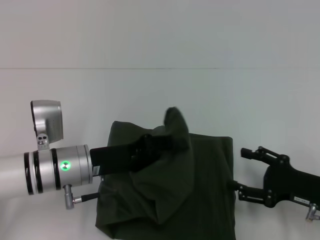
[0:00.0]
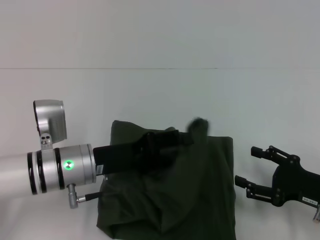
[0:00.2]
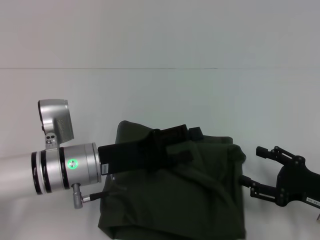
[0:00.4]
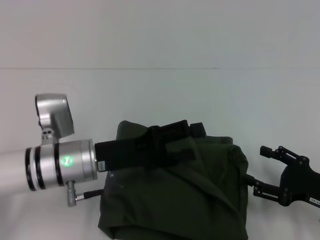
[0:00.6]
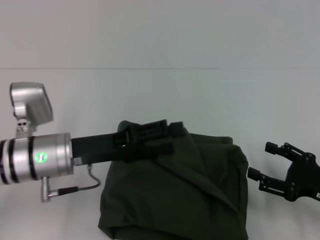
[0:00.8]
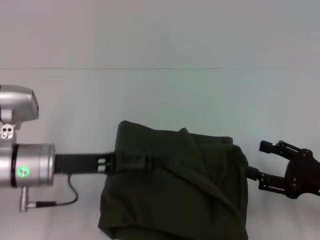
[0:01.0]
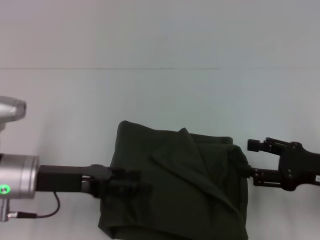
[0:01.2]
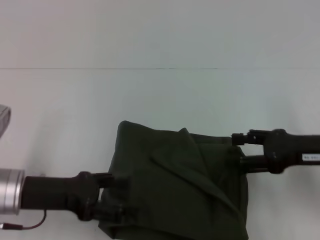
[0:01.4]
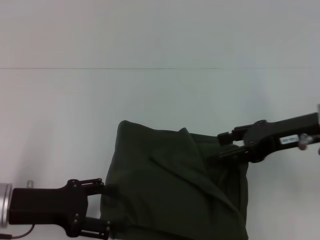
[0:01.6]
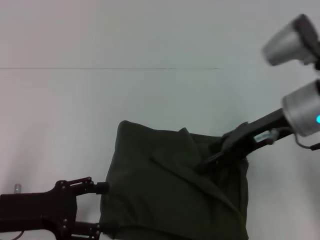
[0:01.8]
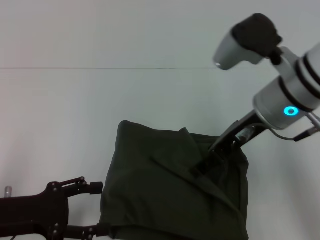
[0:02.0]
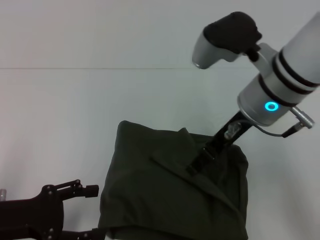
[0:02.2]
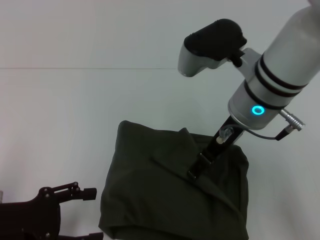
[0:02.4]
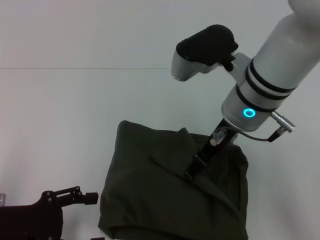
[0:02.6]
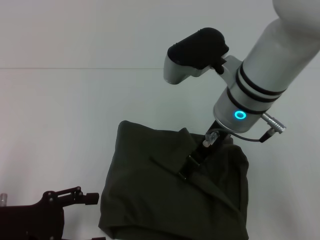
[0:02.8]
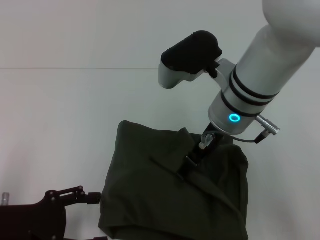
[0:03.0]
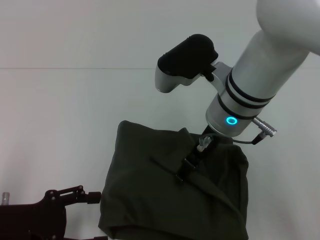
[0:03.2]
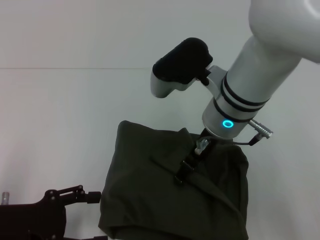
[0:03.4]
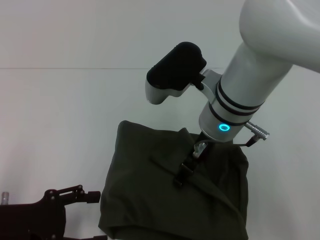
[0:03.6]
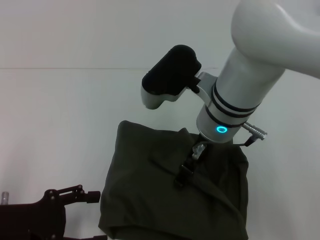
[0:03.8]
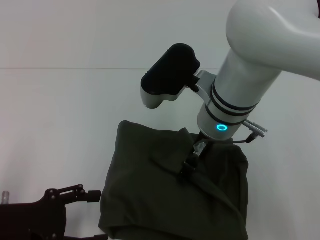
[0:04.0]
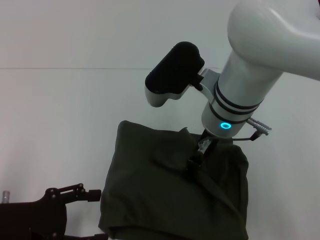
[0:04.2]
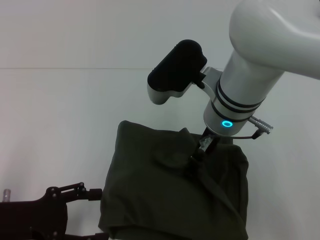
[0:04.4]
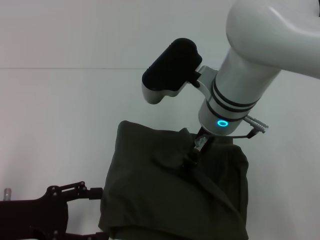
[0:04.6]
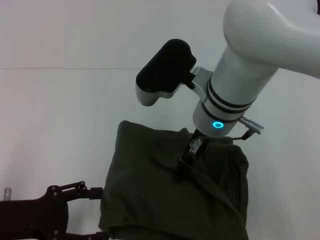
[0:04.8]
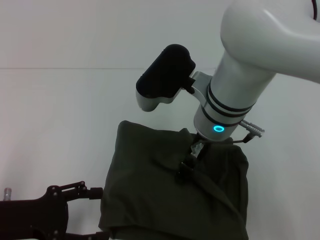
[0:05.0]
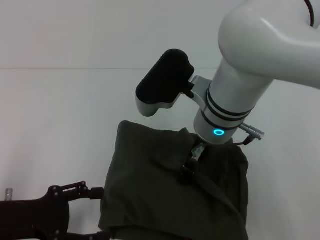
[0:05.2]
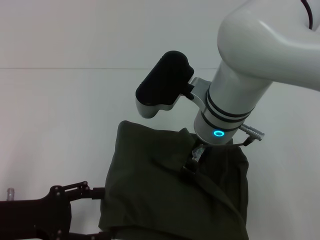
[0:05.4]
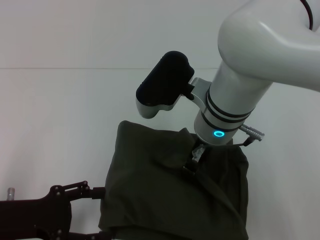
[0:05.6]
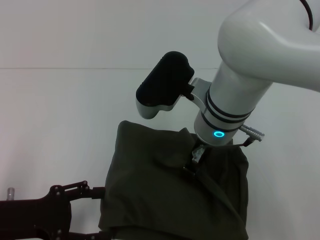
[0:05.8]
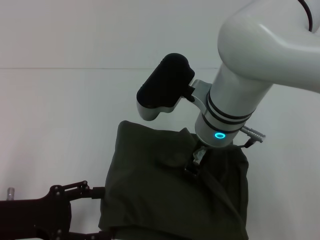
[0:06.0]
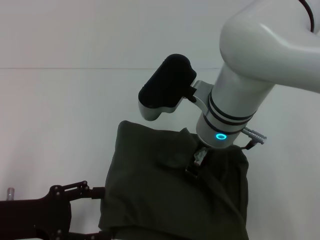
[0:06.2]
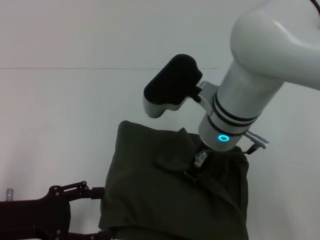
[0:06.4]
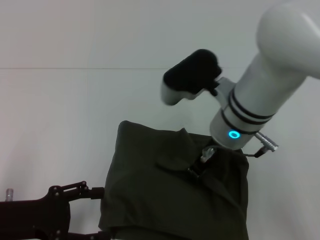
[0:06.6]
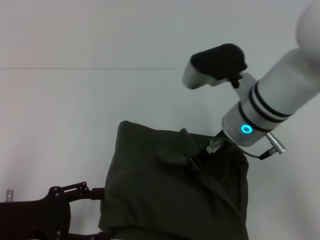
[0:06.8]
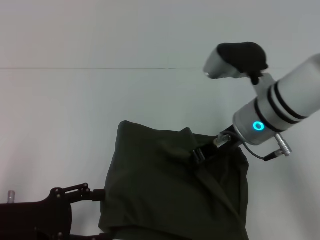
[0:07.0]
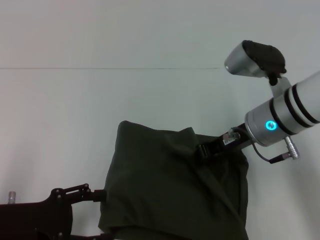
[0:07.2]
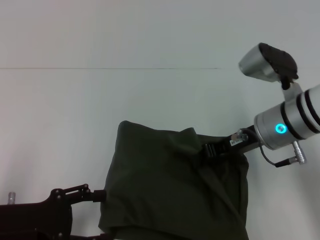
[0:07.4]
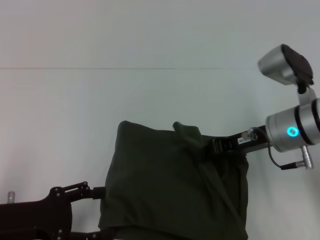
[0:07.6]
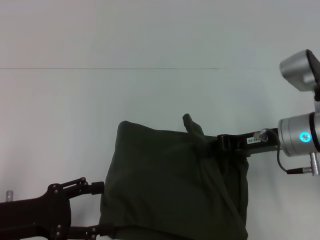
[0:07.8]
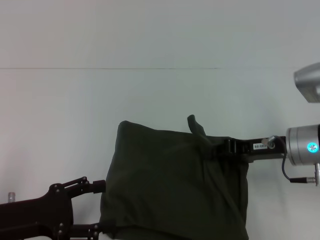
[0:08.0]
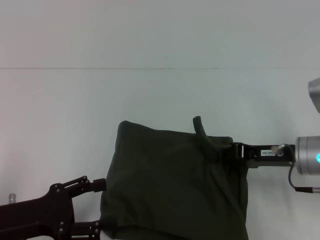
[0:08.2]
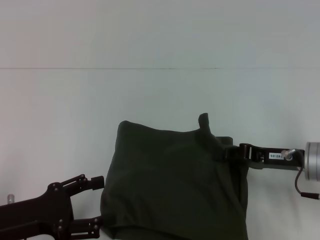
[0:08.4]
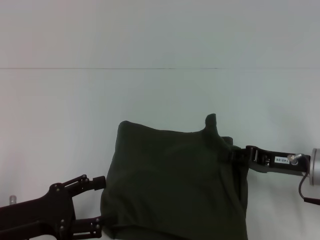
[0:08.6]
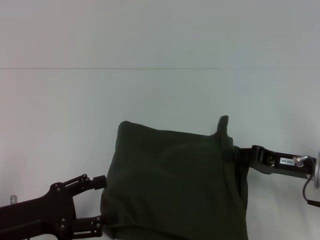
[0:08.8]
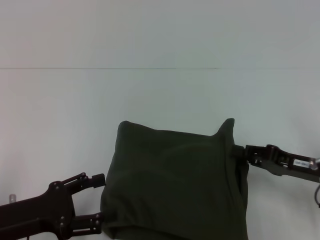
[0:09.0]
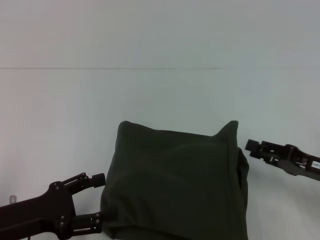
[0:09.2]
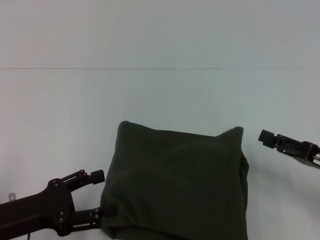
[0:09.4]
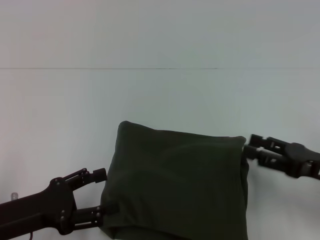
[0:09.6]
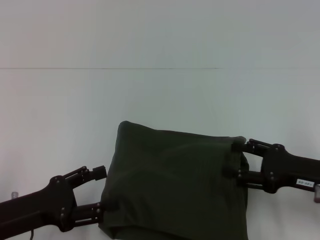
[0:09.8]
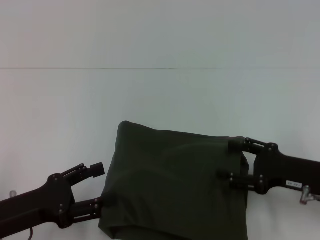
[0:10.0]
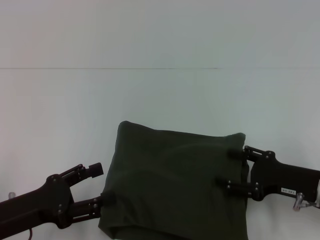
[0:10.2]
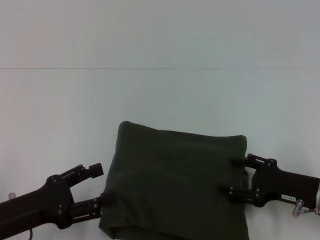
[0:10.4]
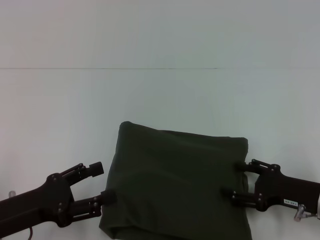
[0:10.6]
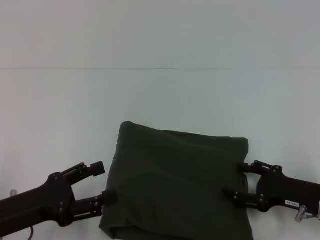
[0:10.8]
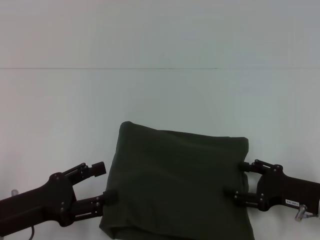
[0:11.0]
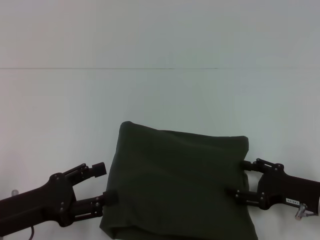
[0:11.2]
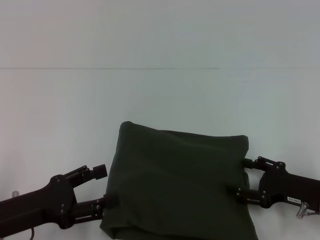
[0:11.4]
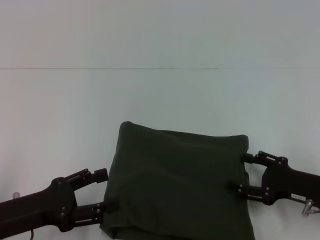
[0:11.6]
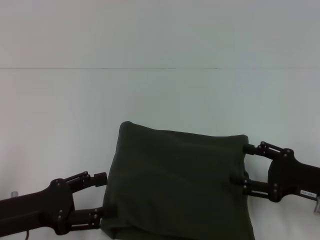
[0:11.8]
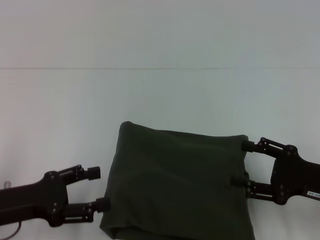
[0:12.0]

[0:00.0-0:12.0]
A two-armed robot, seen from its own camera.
0.0 to 1.6 s: The right gripper heads upward and forward, covering roughly 15 cm. Meanwhile the left gripper shifts about 10 cm to the left and backward, and opens up.
1.6 to 3.0 s: The right gripper shifts about 15 cm to the left.
3.0 to 4.4 s: The grippers move only a little.
4.4 to 6.0 s: The right gripper closes its fingers.
6.0 to 7.6 s: The right gripper goes some 15 cm to the right.
7.6 to 9.0 s: The right gripper goes some 15 cm to the right, backward and downward.
9.0 to 10.4 s: The right gripper opens up.
10.4 to 12.0 s: The grippers make only small movements.

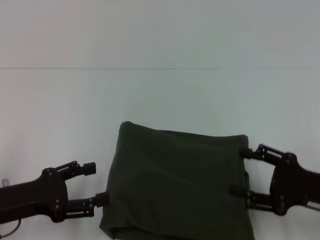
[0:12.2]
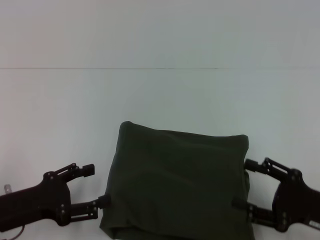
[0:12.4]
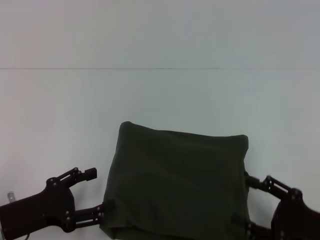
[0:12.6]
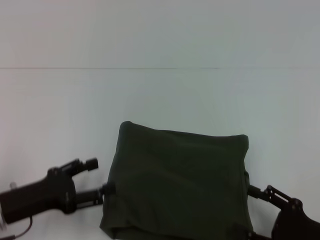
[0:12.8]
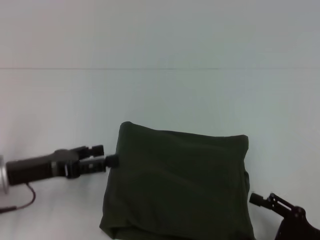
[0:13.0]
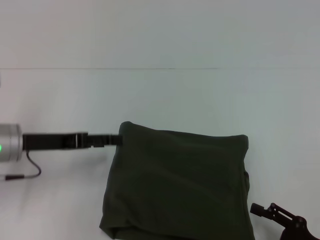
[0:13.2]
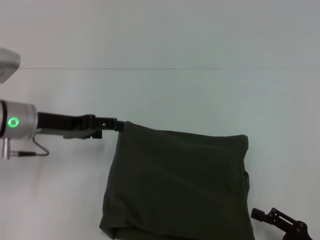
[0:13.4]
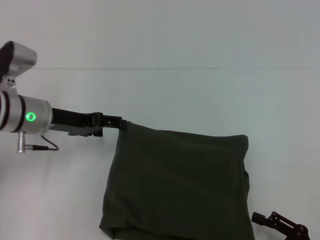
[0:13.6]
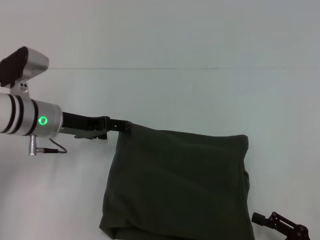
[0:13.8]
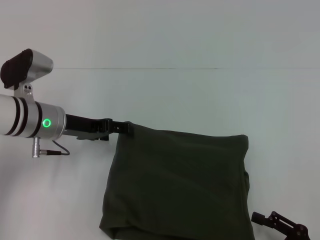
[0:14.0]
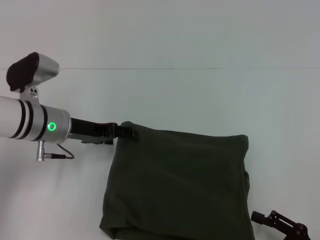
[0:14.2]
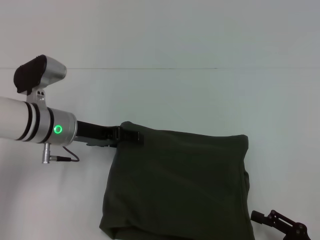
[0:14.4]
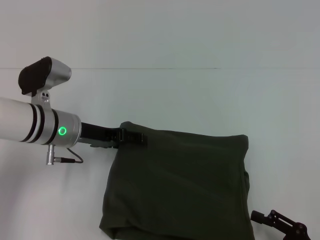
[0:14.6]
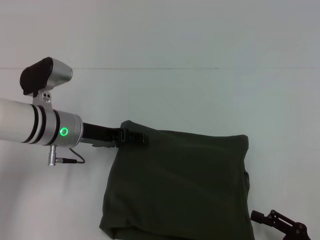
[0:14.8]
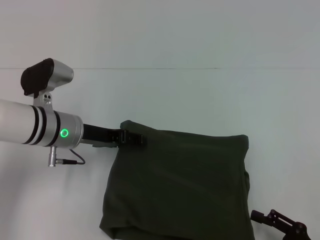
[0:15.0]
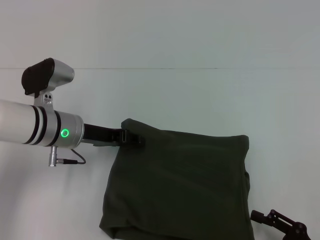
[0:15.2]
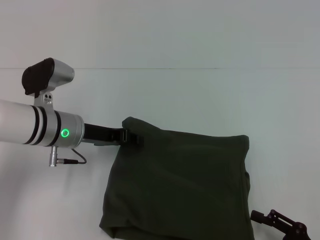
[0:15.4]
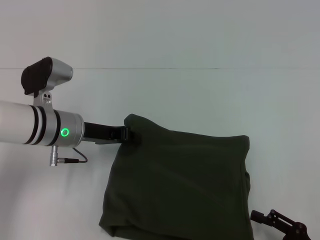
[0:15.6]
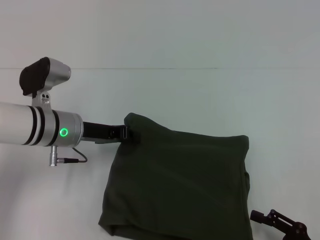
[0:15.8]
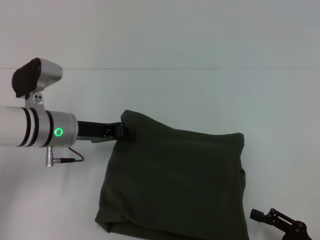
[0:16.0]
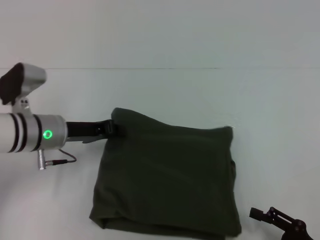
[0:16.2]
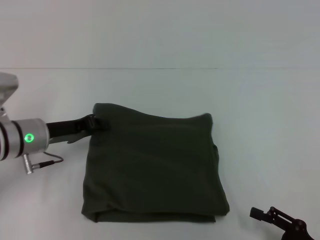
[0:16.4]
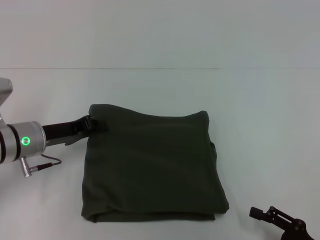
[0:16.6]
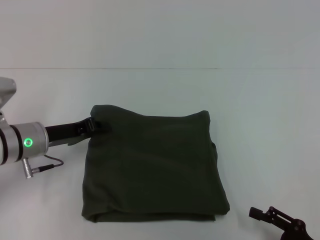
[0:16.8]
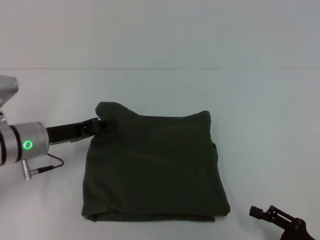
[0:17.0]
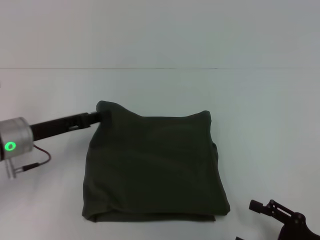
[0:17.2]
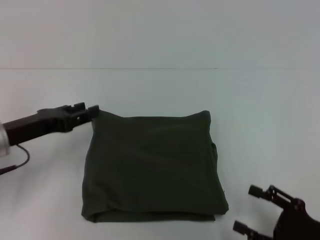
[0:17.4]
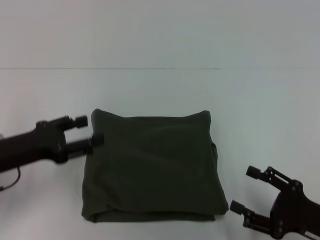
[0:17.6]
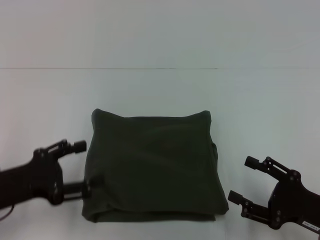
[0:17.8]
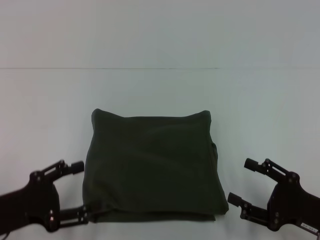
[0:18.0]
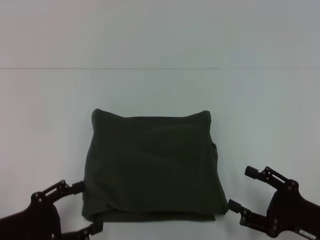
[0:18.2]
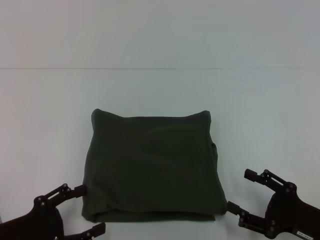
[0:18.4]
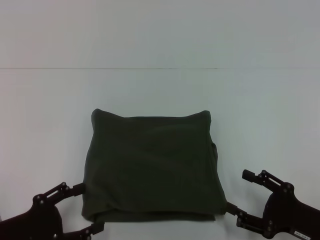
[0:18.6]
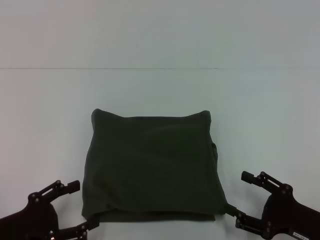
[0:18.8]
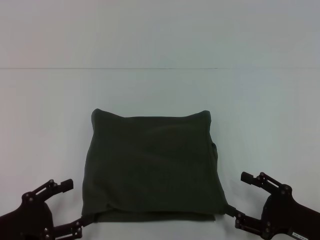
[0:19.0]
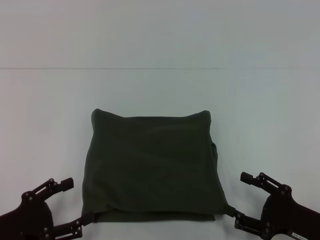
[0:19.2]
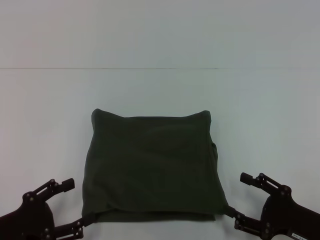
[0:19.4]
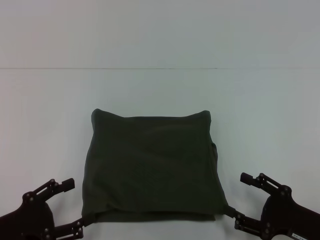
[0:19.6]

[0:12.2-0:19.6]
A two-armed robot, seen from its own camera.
12.2 to 13.6 s: The right gripper shifts some 10 cm backward and downward, while the left gripper goes about 15 cm forward.
13.6 to 15.2 s: The left gripper ends up about 5 cm from where it was.
15.2 to 16.6 s: The left gripper goes about 5 cm to the left, and closes up.
16.6 to 18.2 s: The left gripper heads backward, covering approximately 15 cm, and opens its fingers.
18.2 to 19.6 s: The grippers stay close to where they were, moving slightly.

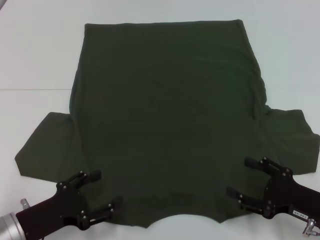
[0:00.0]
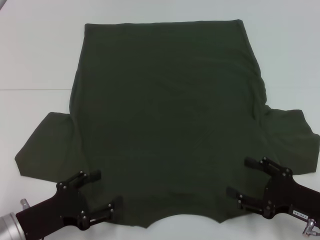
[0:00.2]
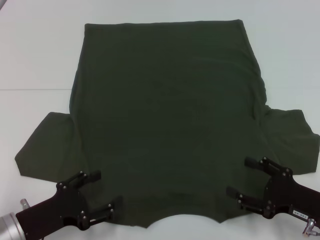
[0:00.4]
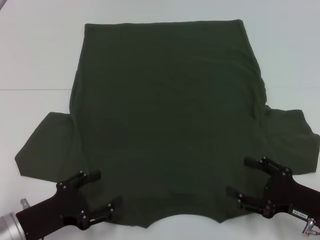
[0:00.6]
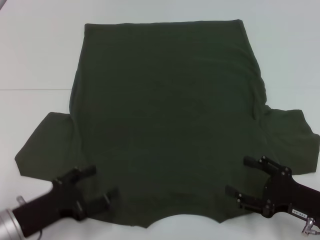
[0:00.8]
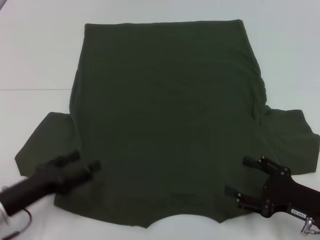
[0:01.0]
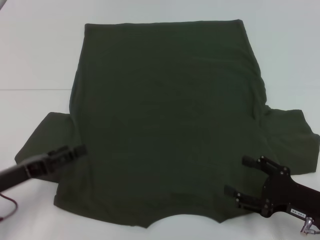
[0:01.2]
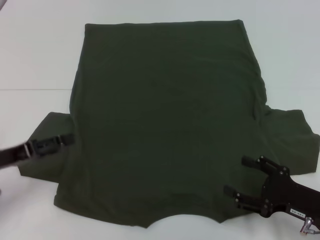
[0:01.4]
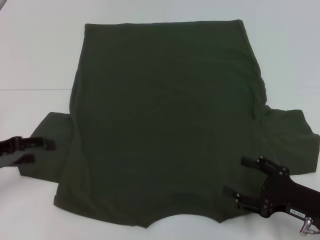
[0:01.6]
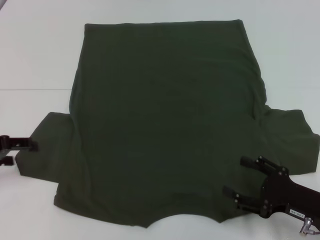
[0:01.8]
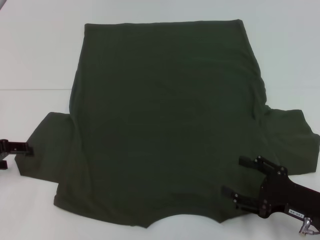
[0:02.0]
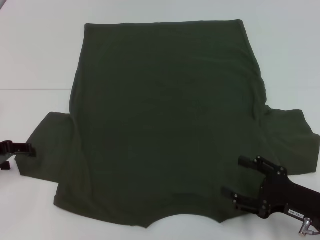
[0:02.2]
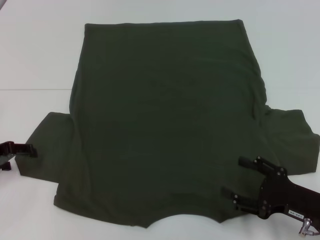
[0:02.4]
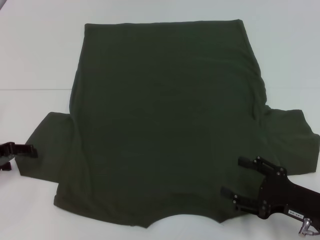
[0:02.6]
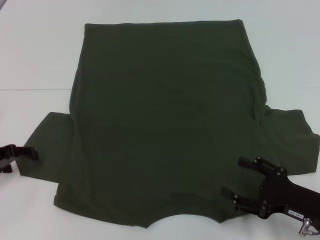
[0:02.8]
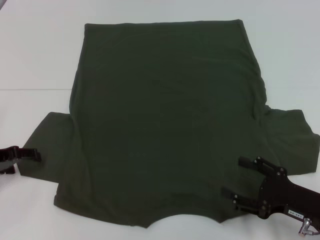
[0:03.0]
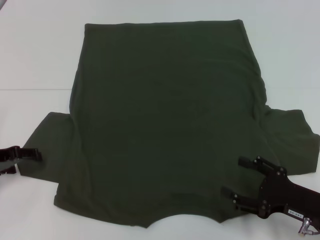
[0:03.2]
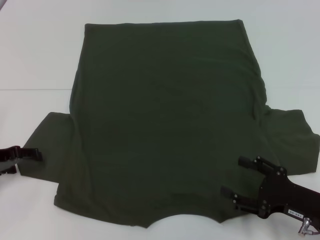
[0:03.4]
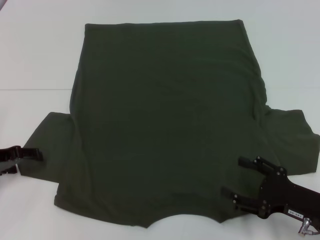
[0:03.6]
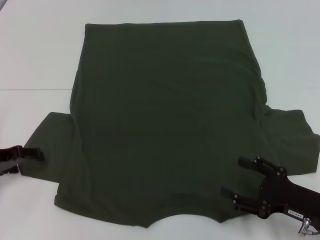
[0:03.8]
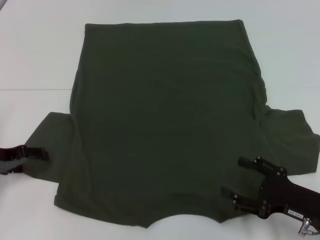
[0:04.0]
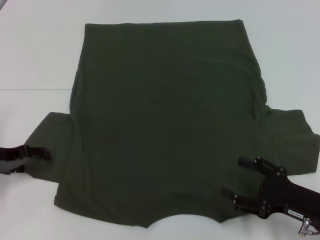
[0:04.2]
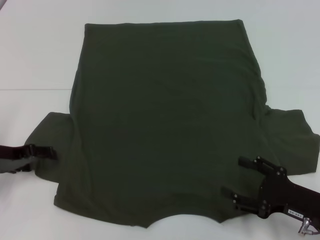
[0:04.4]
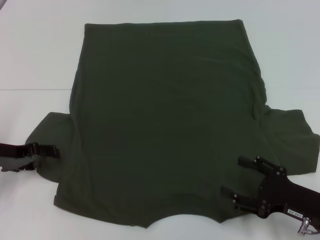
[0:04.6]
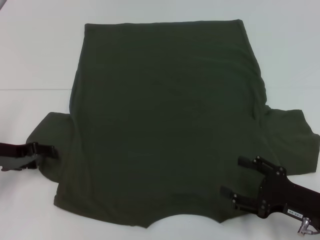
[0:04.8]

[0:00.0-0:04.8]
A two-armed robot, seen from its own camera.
0.0 to 1.6 s: The left gripper goes roughly 15 cm upward, to the left and forward.
3.2 to 4.8 s: The grippers move only a little.
